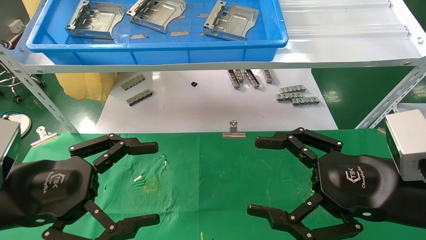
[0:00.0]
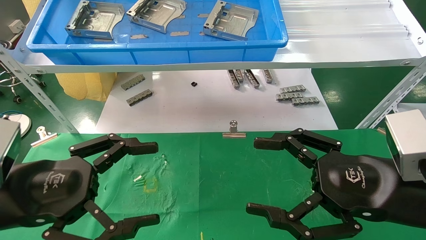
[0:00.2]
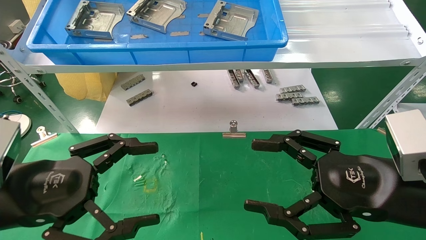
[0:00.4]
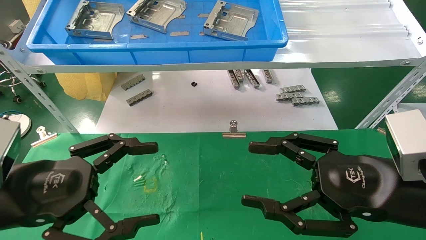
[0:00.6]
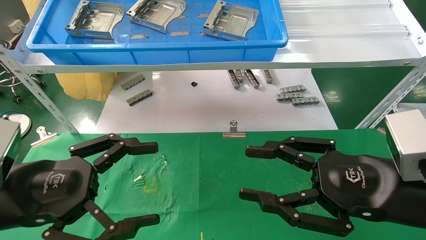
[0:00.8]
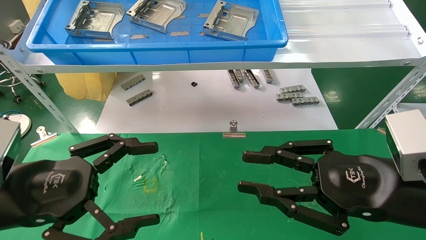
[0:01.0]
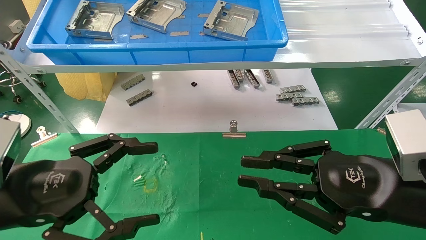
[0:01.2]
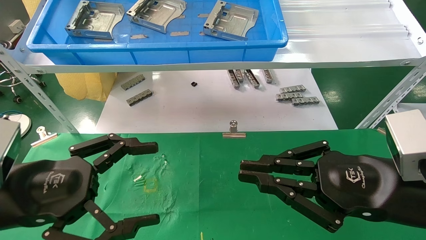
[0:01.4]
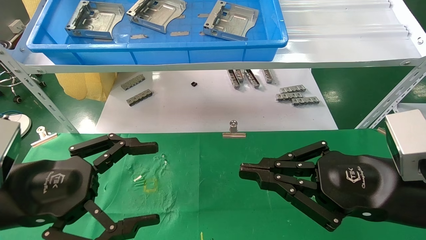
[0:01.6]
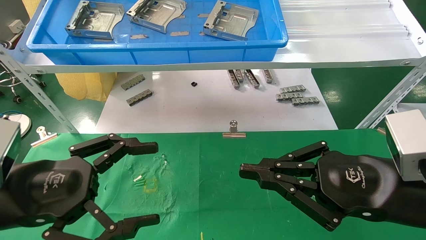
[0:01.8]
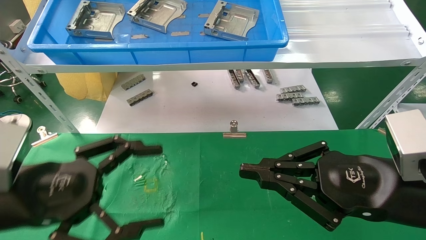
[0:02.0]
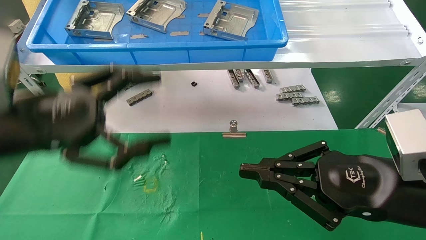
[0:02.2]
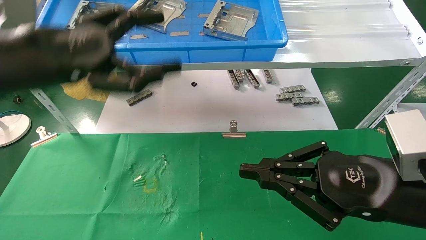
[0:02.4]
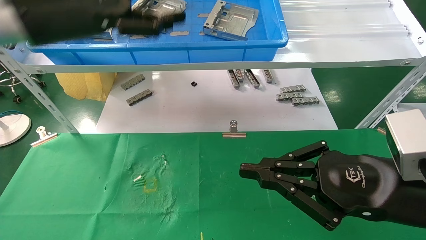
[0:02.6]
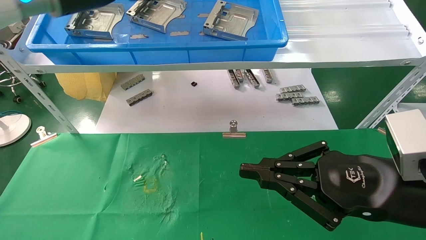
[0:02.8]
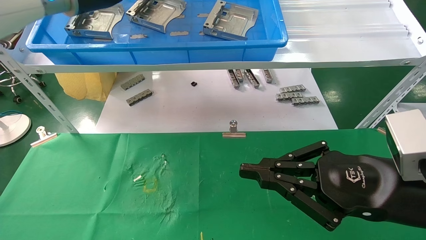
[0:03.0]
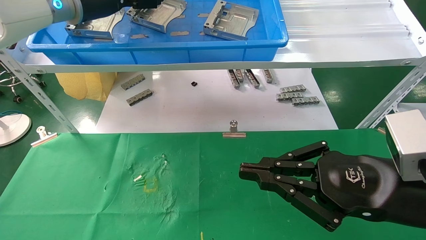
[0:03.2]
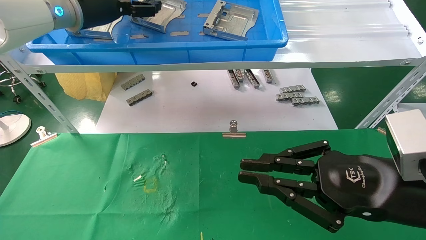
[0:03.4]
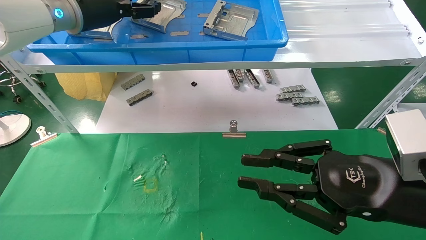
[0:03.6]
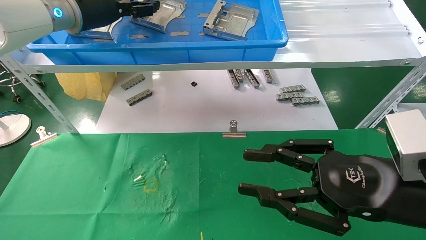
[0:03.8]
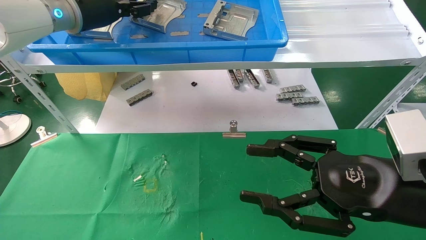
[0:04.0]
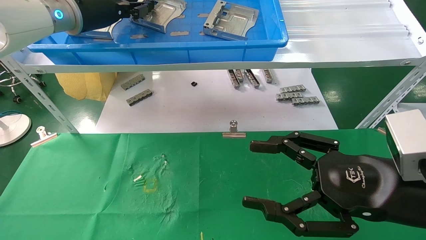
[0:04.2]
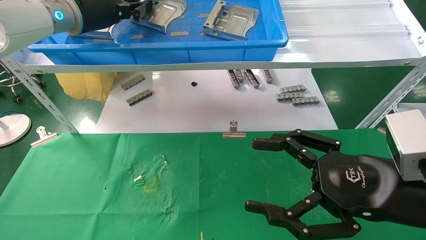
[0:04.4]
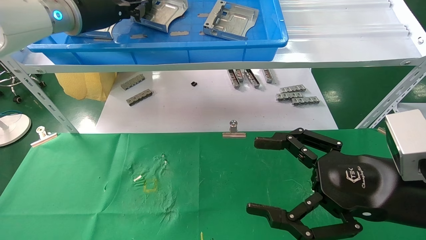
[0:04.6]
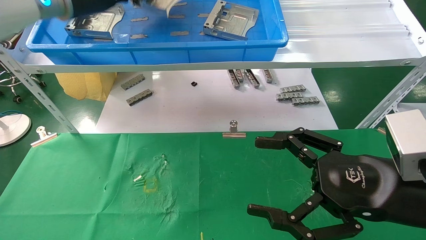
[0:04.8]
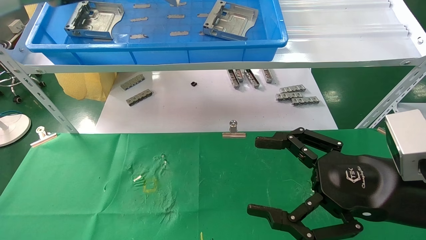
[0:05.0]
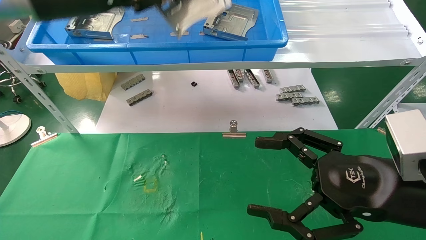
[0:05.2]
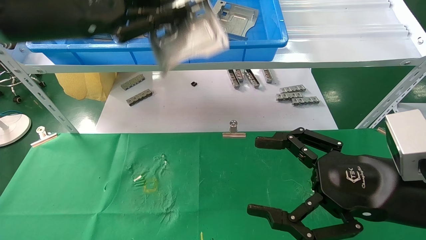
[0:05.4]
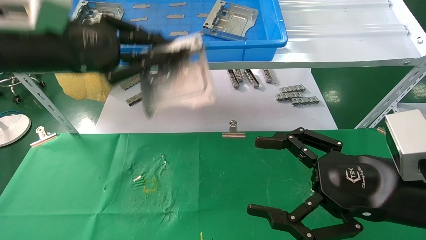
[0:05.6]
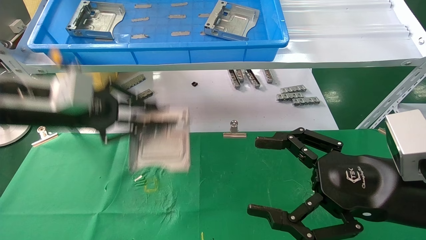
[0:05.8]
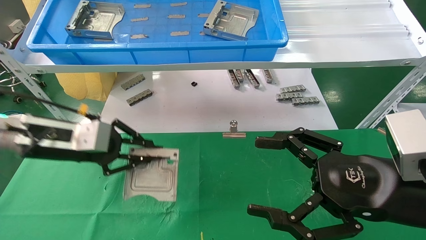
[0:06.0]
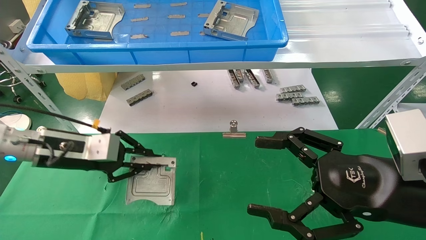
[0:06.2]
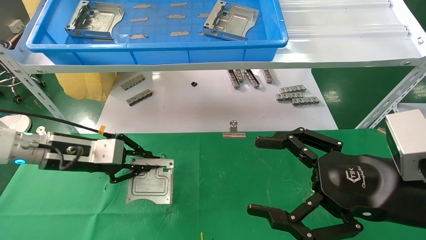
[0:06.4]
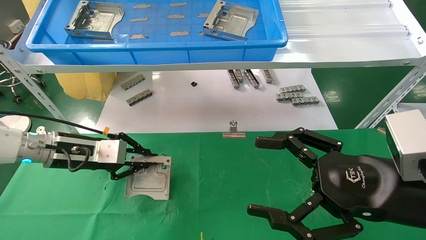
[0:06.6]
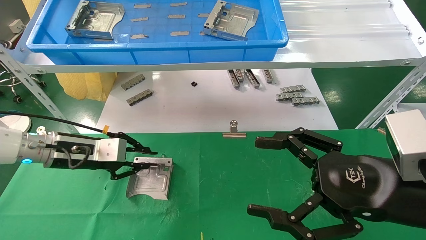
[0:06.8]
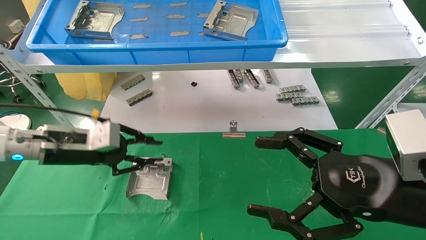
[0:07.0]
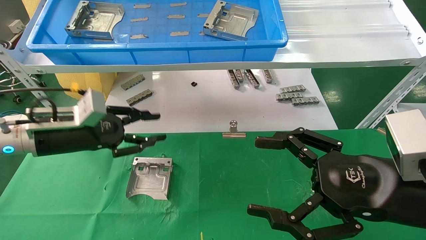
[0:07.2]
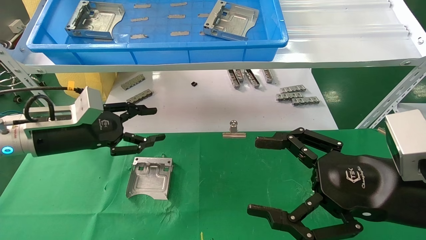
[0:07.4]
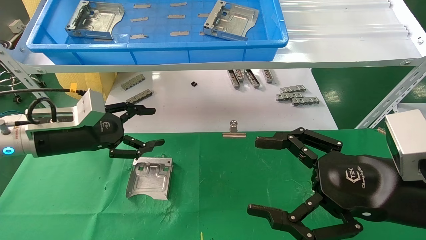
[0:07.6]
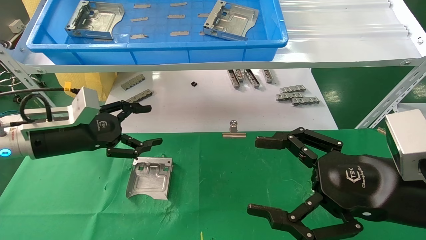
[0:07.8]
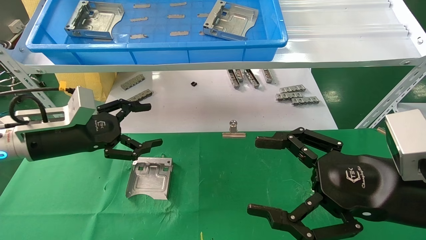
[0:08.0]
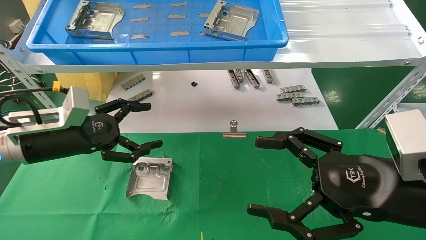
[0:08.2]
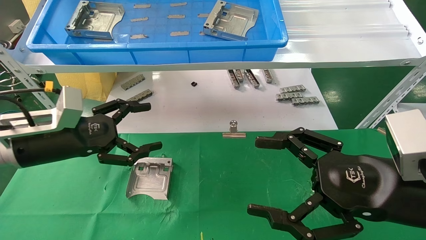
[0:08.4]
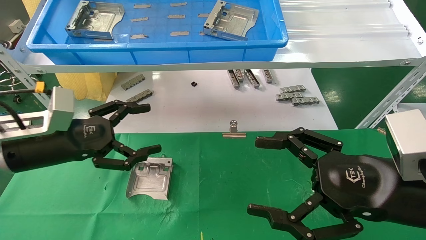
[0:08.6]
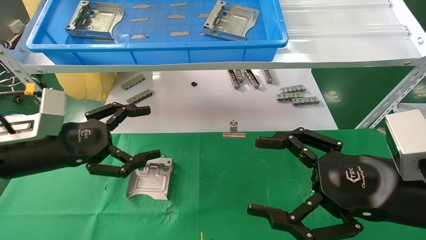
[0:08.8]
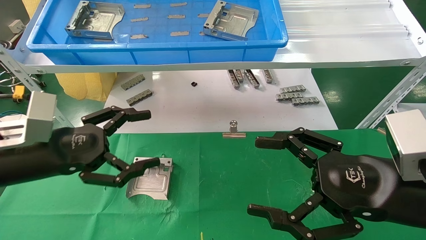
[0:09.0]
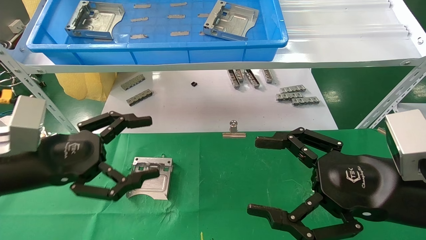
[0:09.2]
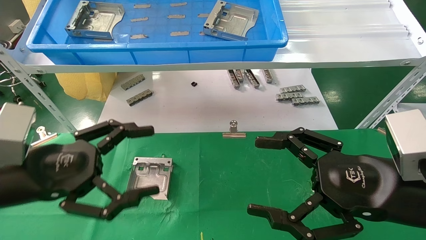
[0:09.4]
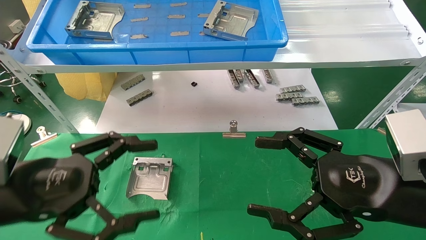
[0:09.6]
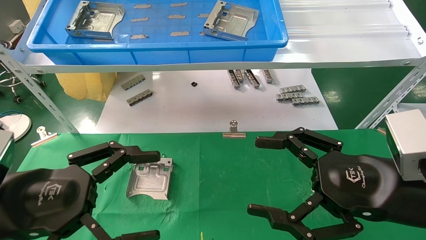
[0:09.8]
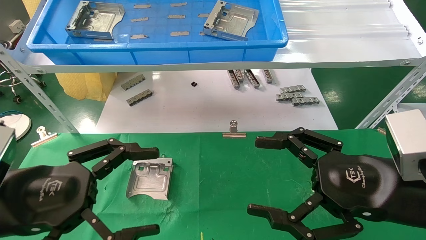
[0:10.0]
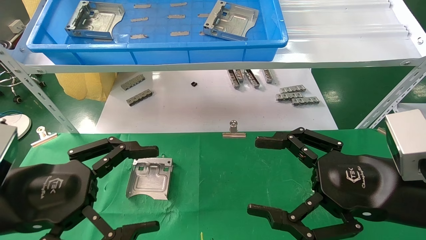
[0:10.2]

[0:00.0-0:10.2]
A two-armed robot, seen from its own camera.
Task of the whole recording: use the mechanical arm to pick up the parts and place them on the table.
Step, 0:01.4 to 0:05.0: Pick up the hard drive bracket from the feeding area.
Step, 0:05.2 to 0:08.0: Place the hard drive bracket into the box.
0:00.0 to 0:01.4: The right gripper closes up.
0:01.4 to 0:03.0: The left gripper shifts some 35 cm upward and forward.
0:03.0 to 0:04.4: The left gripper closes, while the right gripper opens.
0:04.4 to 0:05.8: The left gripper heads downward and backward, covering roughly 20 cm.
0:05.8 to 0:07.2: The left gripper is displaced downward by approximately 10 cm.
0:07.2 to 0:08.8: The left gripper moves backward, roughly 5 cm, and opens.
0:08.8 to 0:10.2: The left gripper goes roughly 10 cm backward.

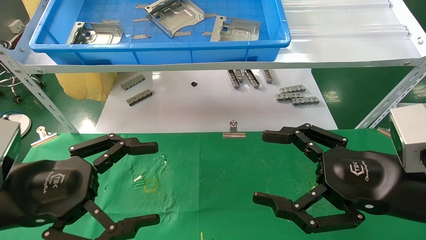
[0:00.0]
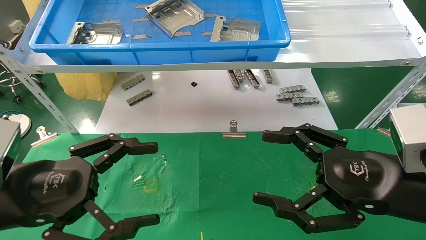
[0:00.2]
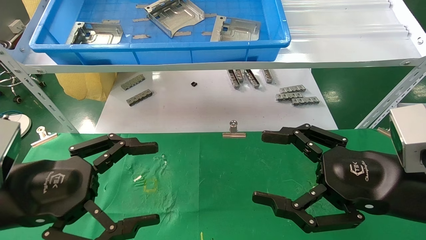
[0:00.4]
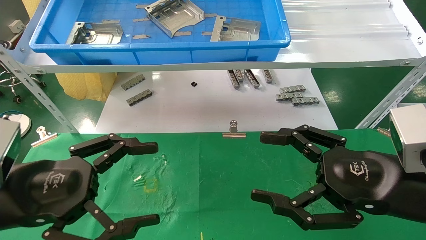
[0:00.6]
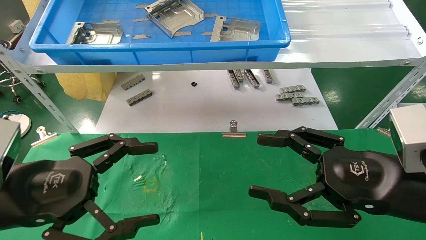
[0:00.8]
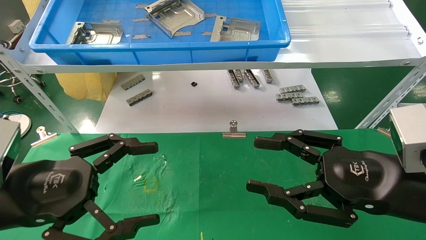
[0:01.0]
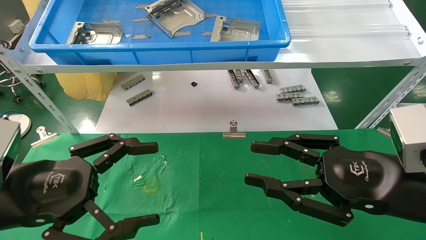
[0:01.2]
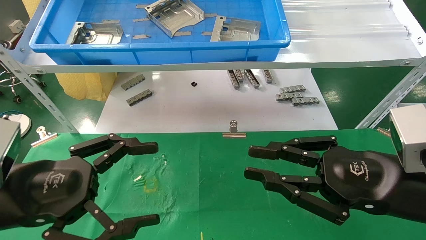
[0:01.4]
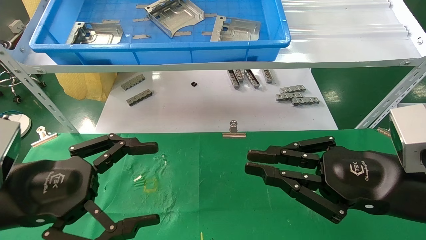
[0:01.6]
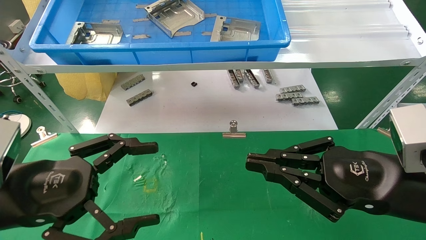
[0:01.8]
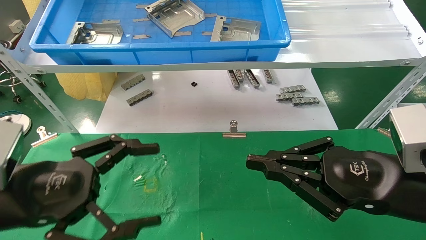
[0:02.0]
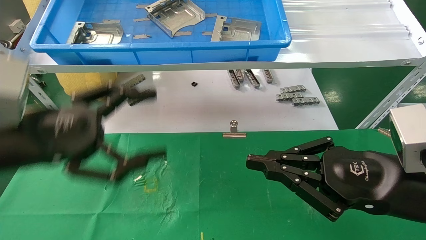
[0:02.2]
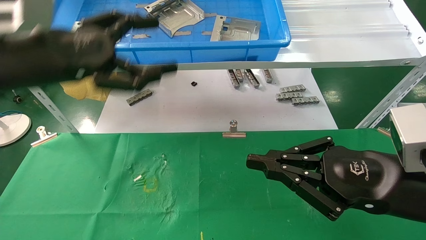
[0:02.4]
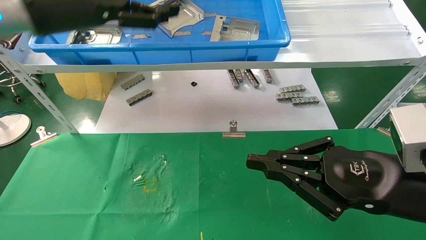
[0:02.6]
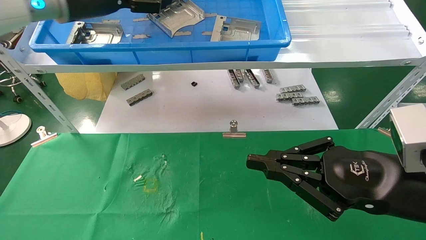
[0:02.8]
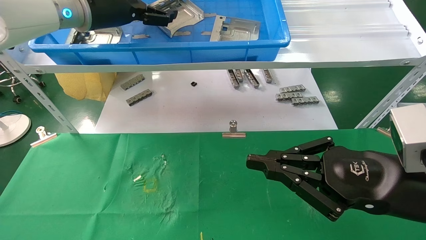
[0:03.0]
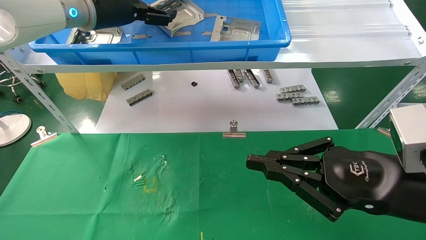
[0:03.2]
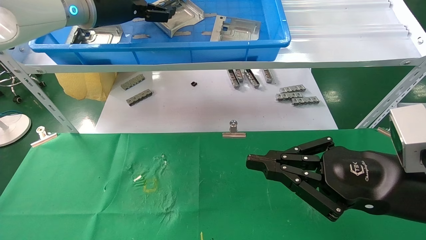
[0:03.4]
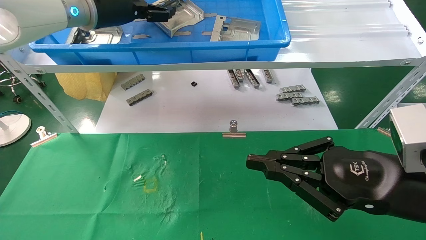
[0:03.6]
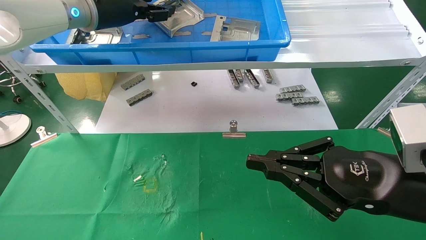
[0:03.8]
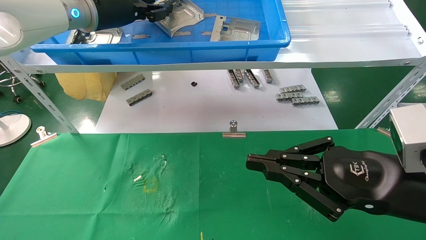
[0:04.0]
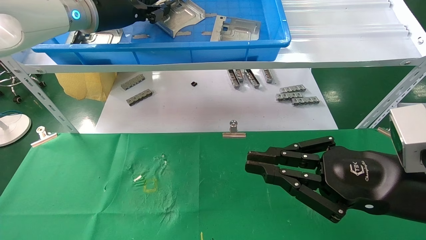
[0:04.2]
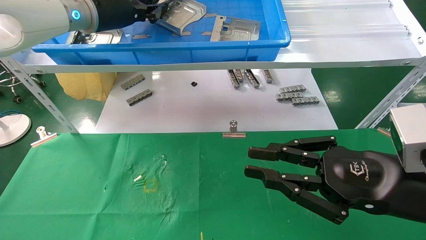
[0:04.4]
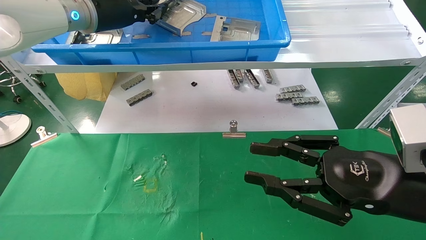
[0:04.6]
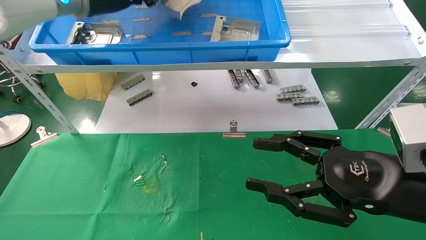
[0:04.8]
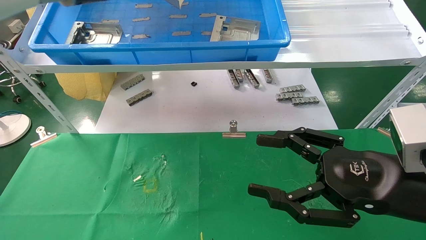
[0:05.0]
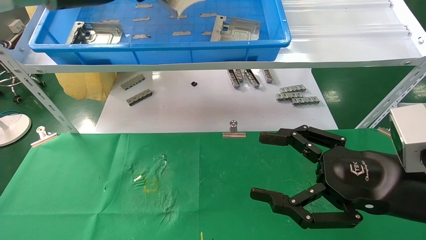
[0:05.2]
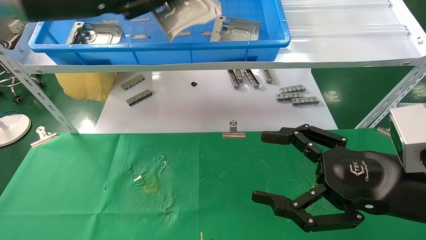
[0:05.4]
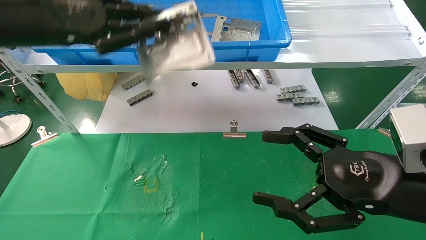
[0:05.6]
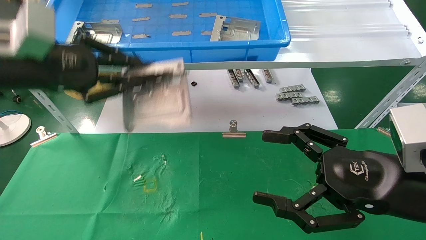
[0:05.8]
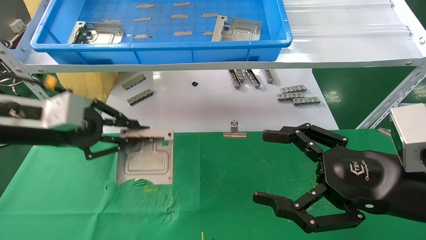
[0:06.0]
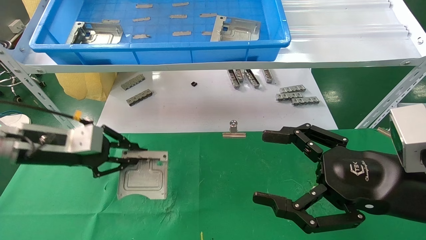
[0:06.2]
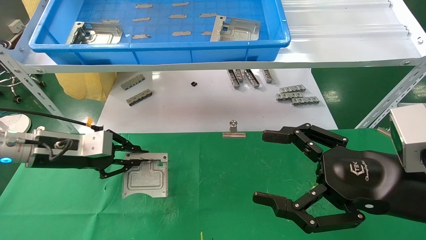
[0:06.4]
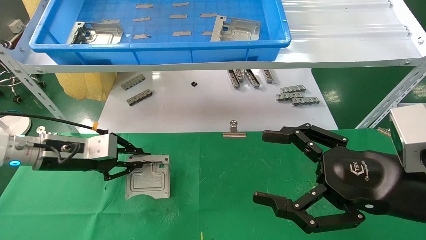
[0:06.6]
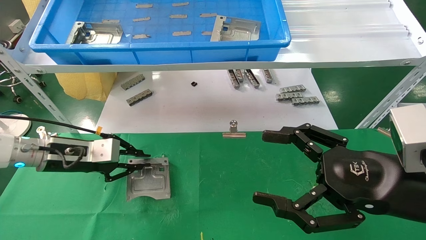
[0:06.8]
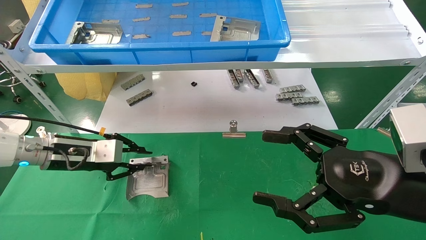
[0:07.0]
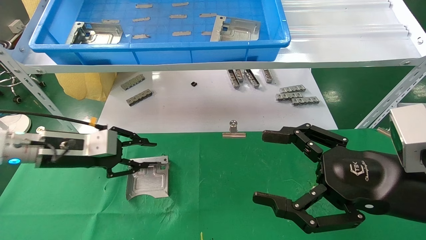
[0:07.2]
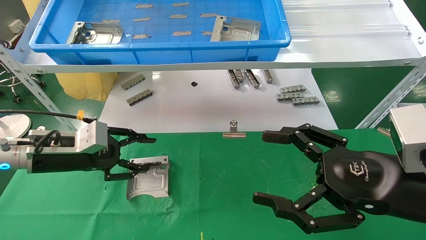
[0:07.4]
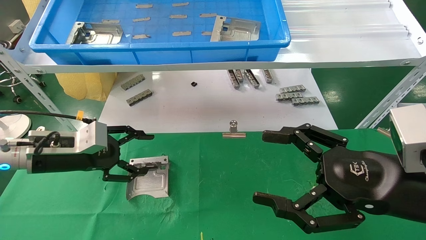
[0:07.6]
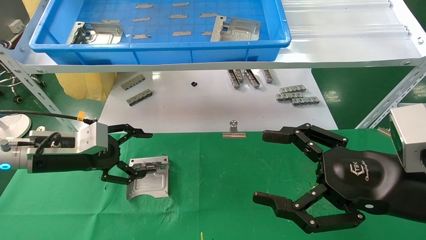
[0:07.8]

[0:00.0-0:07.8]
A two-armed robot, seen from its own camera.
Task of the whole recording: use the mechanical arm to pick up the parts and place them on the table.
Step, 0:02.4 to 0:04.4: Pick up the hard drive bracket from the feeding area.
Step, 0:04.6 to 0:07.4: Place the hard drive bracket into the box.
0:00.0 to 0:01.6: The right gripper closes its fingers.
0:01.6 to 0:03.2: The left gripper shifts about 35 cm forward and upward.
0:03.2 to 0:04.6: The left gripper closes.
0:04.6 to 0:06.2: The left gripper heads downward and to the left, covering roughly 25 cm. The right gripper opens up.
0:06.2 to 0:07.8: The left gripper opens up.
